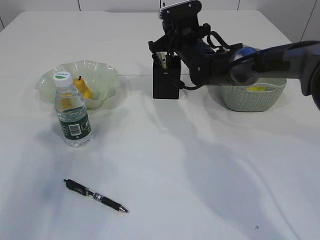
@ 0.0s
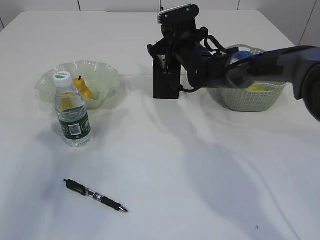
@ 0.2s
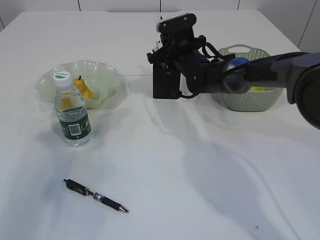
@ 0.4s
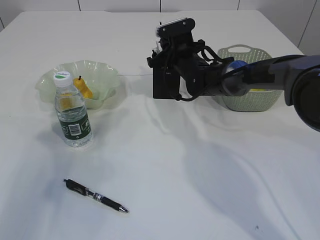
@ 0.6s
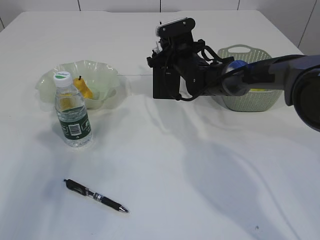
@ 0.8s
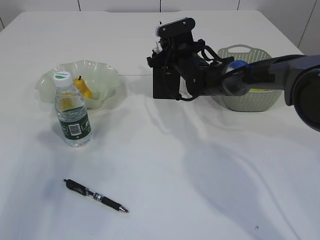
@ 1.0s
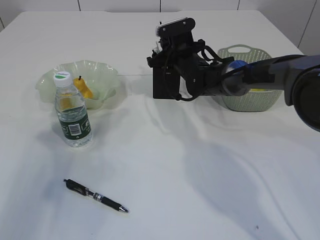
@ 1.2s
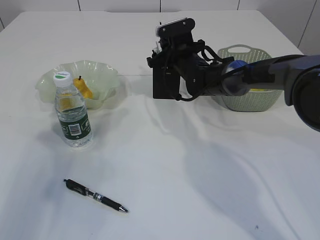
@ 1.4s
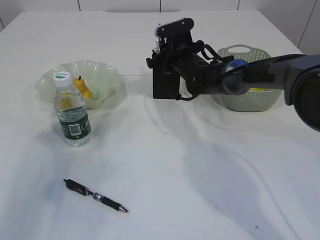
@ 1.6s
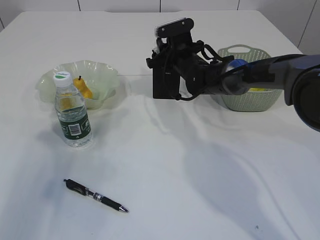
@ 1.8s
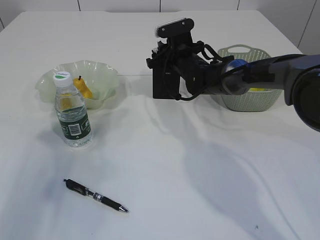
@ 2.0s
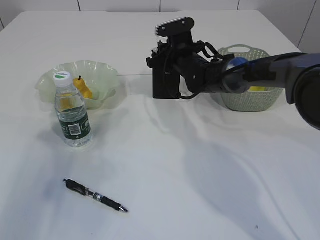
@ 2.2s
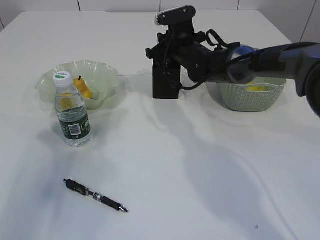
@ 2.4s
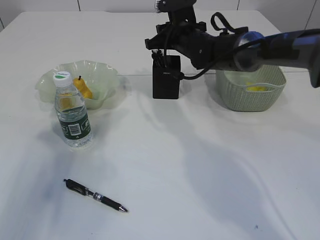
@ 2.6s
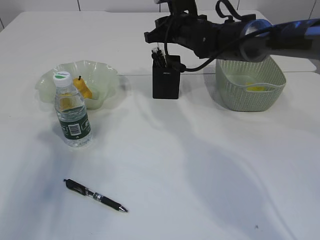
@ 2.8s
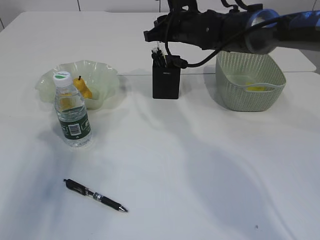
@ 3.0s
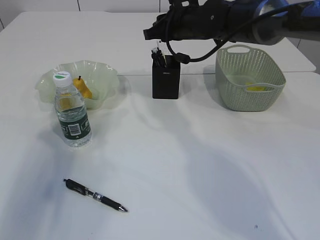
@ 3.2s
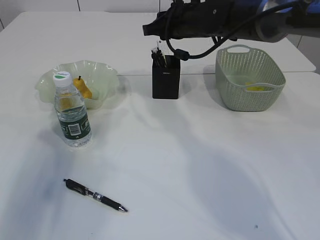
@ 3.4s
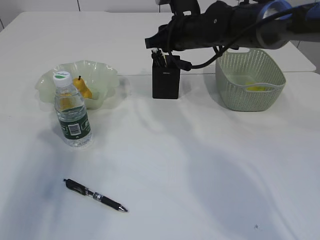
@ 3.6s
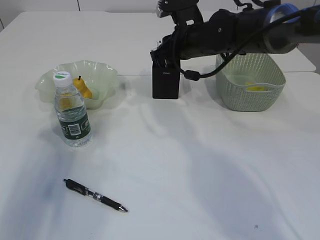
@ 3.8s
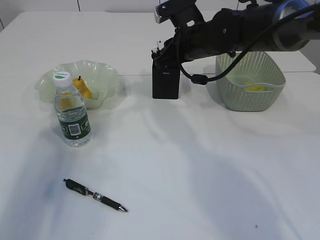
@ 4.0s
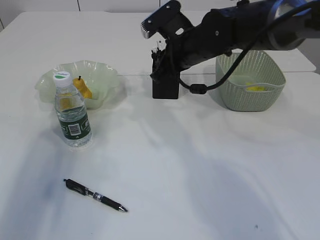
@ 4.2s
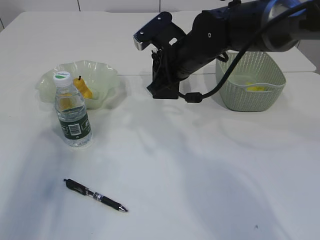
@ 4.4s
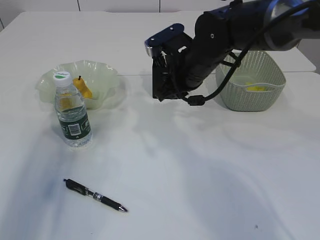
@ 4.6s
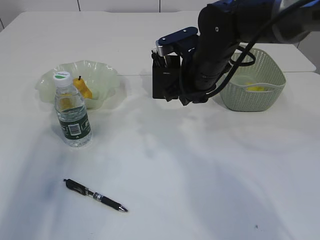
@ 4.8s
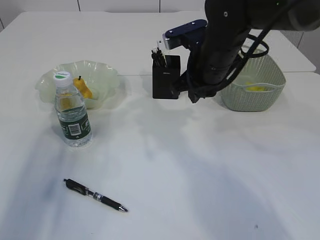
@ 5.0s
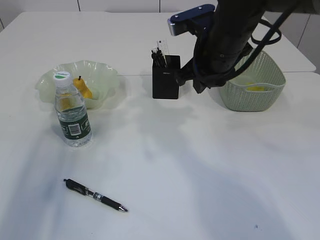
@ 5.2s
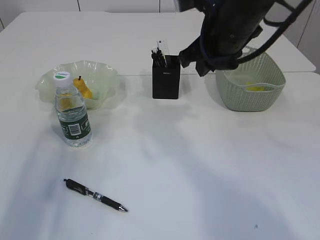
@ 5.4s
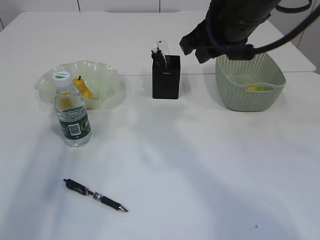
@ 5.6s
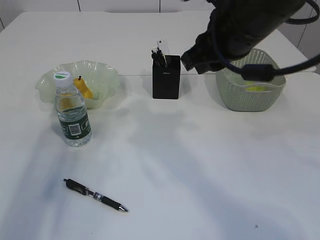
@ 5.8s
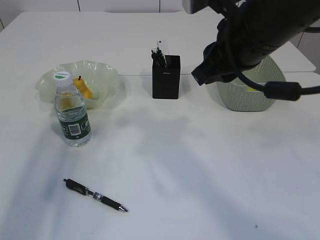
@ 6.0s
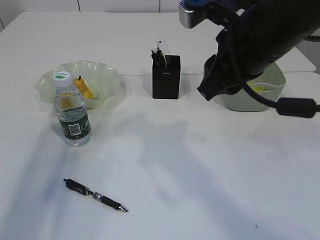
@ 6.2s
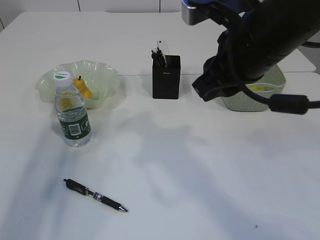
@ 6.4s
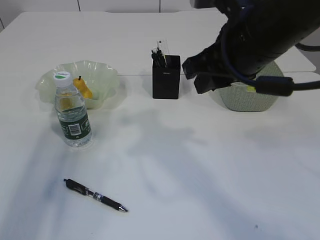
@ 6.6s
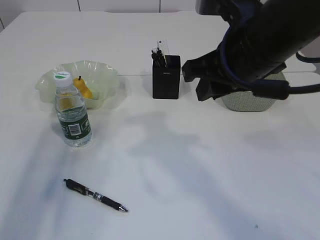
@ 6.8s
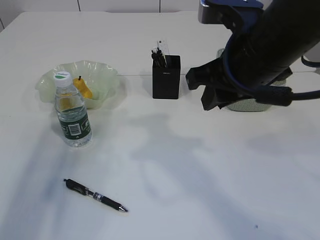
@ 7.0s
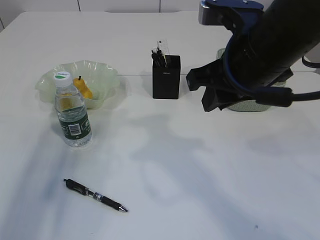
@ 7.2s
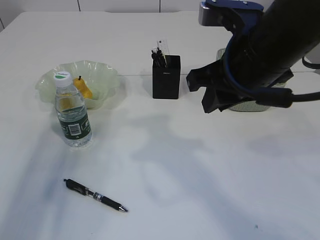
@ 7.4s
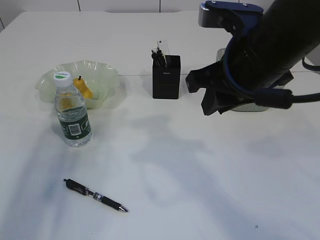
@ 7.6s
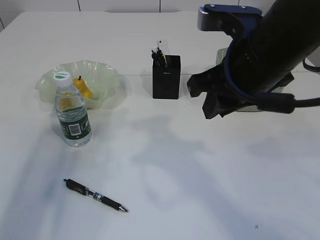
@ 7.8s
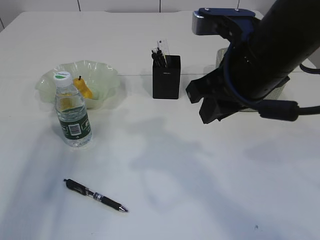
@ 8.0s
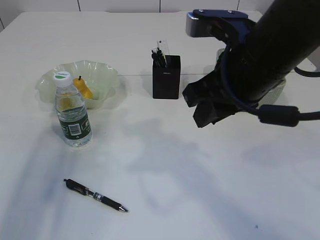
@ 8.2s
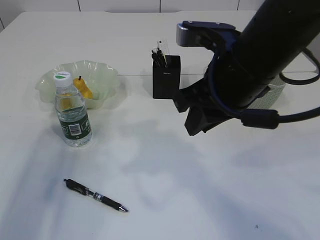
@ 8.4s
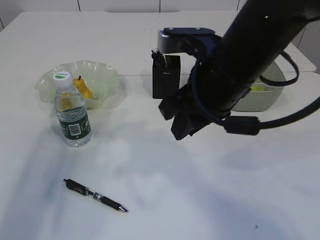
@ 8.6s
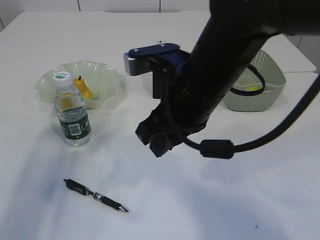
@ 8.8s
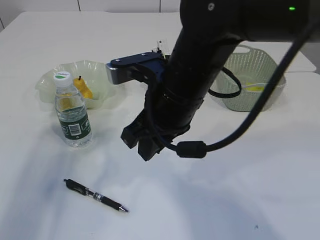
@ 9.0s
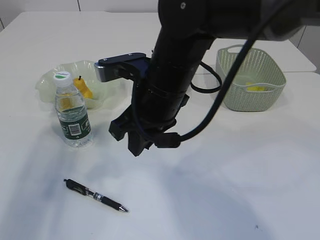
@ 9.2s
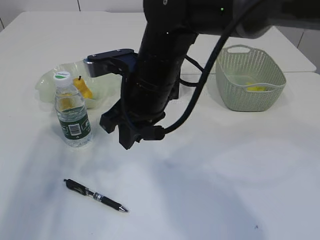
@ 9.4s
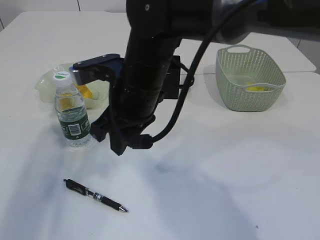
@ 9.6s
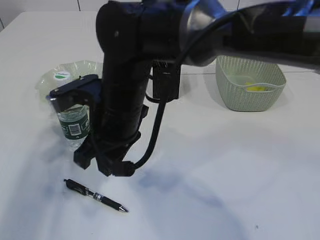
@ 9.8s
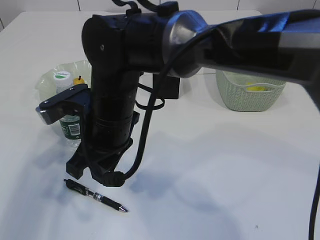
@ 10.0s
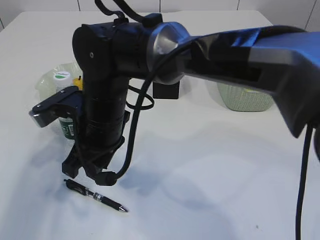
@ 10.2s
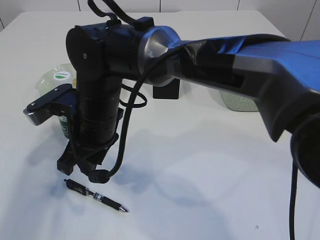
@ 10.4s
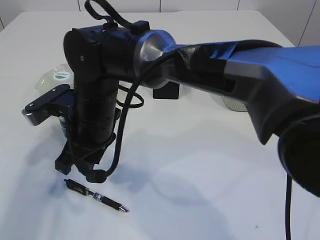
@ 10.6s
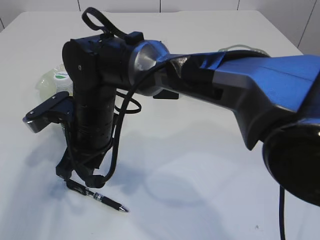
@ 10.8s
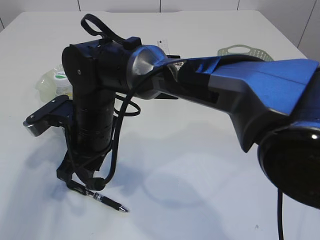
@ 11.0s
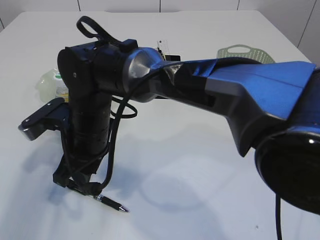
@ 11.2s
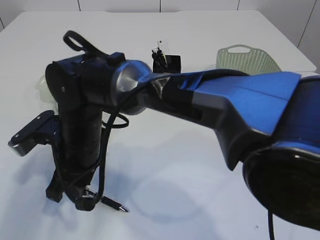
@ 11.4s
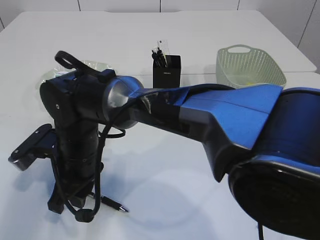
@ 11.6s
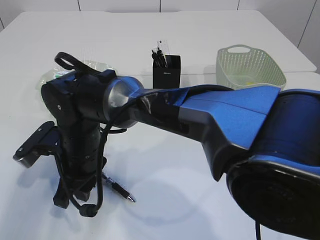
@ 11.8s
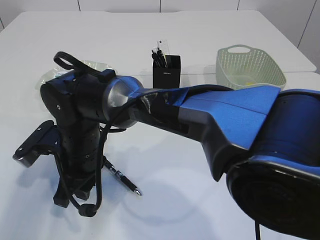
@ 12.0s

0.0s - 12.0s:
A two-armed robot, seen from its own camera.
Step, 0.0s - 4.8s: Place the pen into the pen holder.
0.0s - 1.6s: The grippers make only small movements.
1.6s - 3.0s: The right gripper goes some 10 cm upward.
3.0s - 4.4s: The right gripper heads backward, covering roughly 10 cm.
4.4s - 6.0s: The right gripper heads backward and upward, covering approximately 15 cm.
7.6s - 9.0s: The right gripper travels to the left by about 10 cm.
9.0s - 10.4s: The right gripper heads to the left and downward, covering approximately 15 cm.
10.4s - 12.0s: The right gripper is displaced downward by roughly 5 cm.

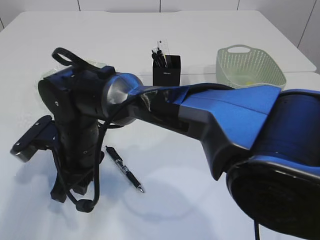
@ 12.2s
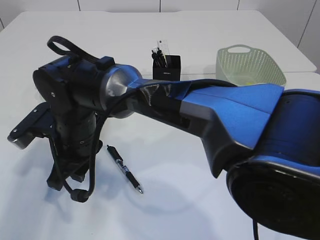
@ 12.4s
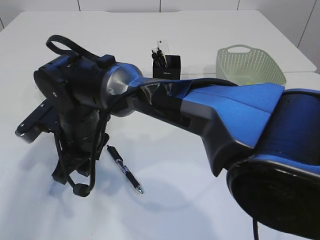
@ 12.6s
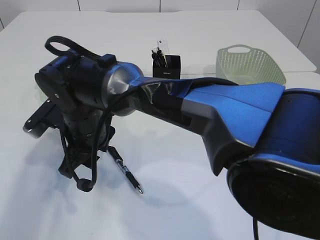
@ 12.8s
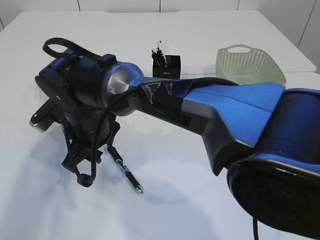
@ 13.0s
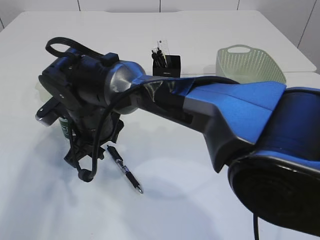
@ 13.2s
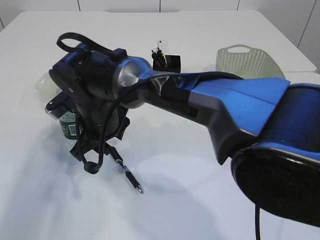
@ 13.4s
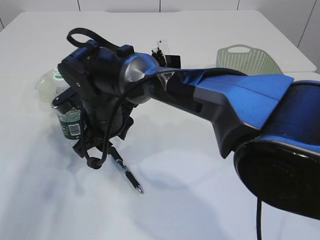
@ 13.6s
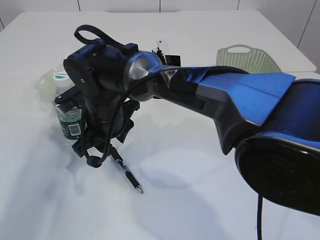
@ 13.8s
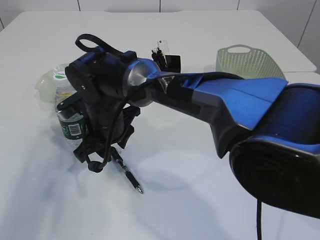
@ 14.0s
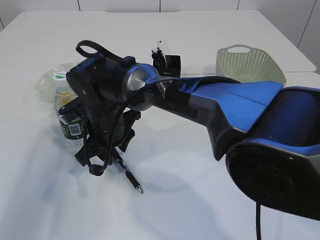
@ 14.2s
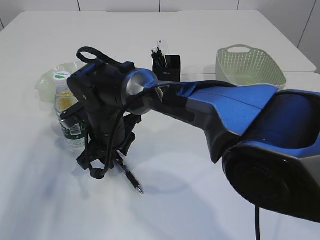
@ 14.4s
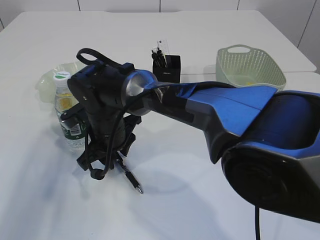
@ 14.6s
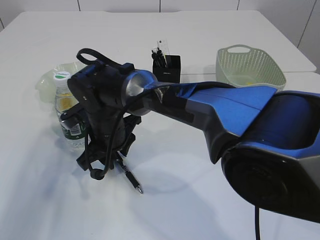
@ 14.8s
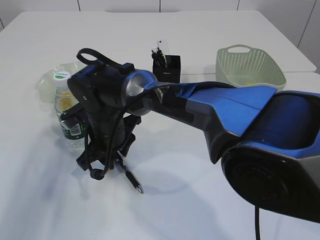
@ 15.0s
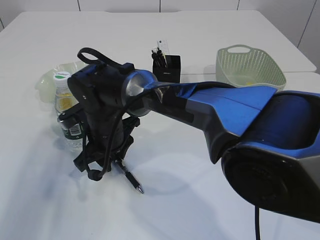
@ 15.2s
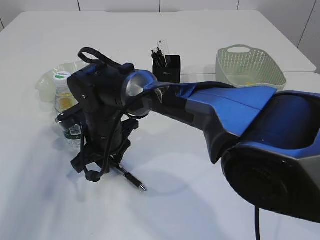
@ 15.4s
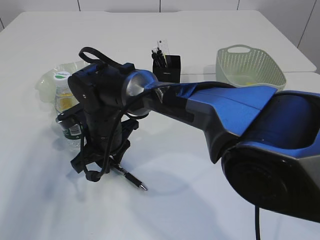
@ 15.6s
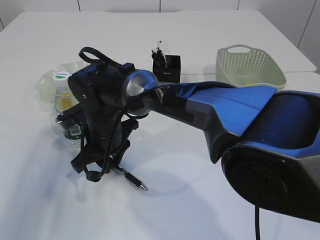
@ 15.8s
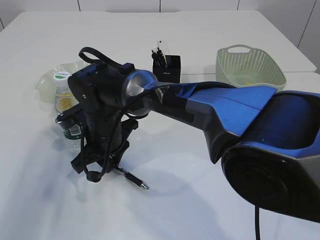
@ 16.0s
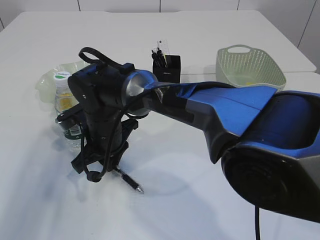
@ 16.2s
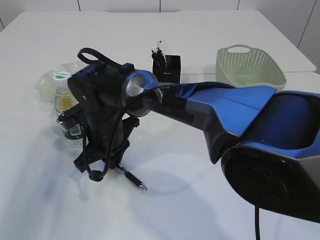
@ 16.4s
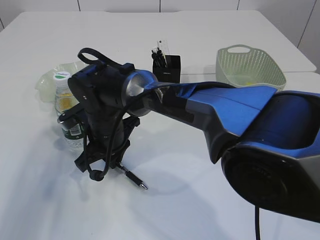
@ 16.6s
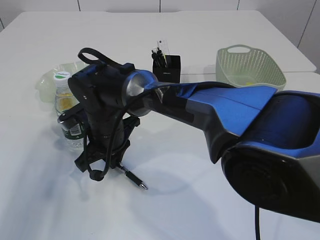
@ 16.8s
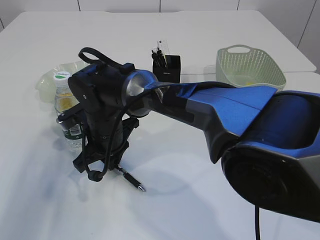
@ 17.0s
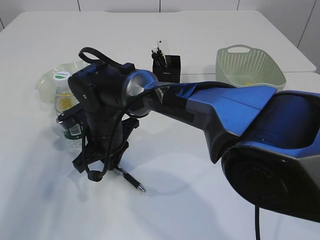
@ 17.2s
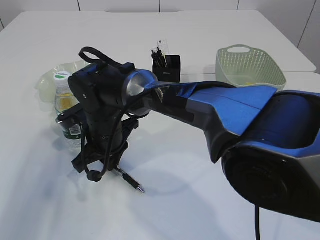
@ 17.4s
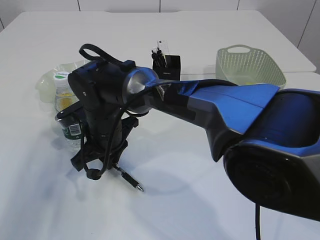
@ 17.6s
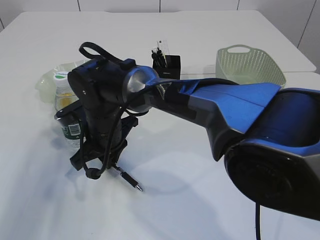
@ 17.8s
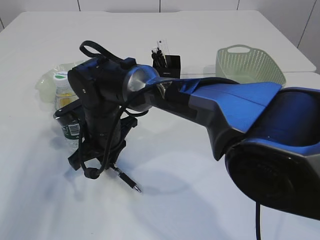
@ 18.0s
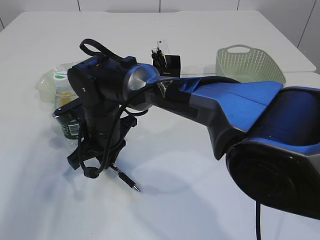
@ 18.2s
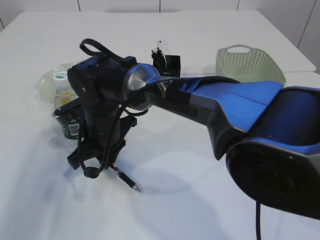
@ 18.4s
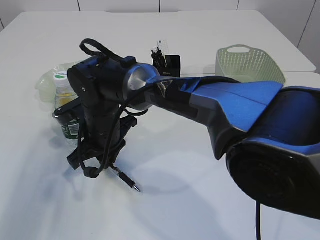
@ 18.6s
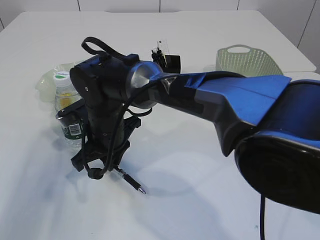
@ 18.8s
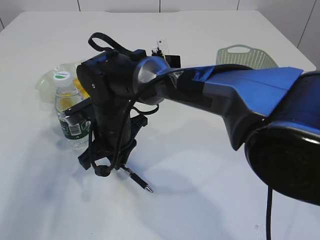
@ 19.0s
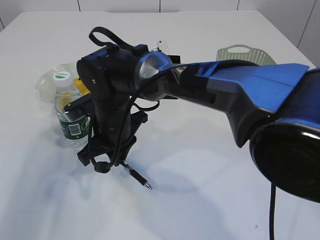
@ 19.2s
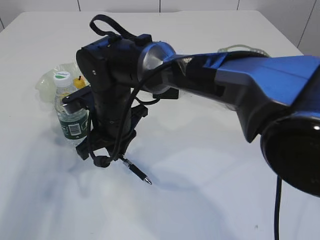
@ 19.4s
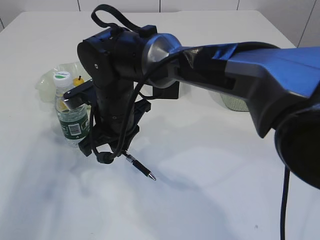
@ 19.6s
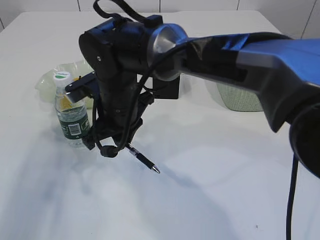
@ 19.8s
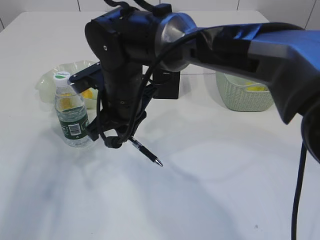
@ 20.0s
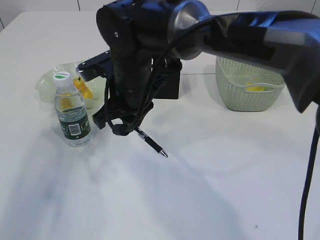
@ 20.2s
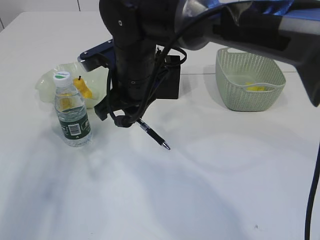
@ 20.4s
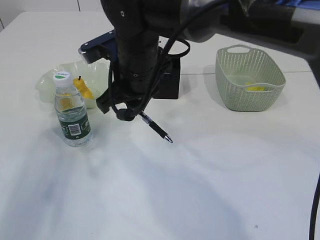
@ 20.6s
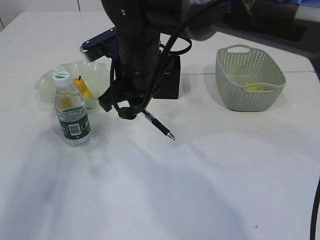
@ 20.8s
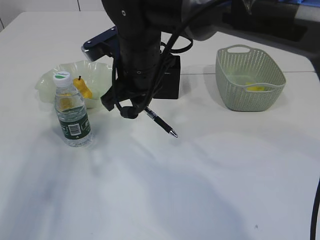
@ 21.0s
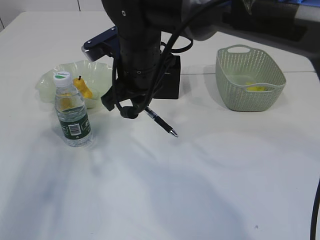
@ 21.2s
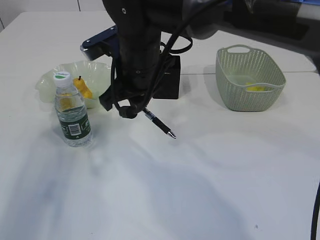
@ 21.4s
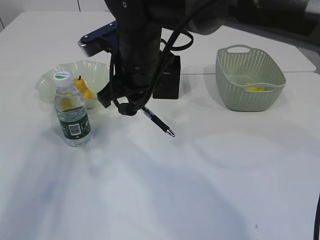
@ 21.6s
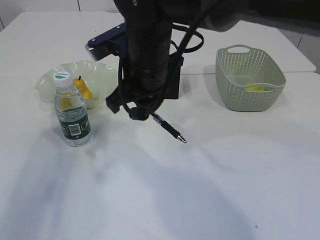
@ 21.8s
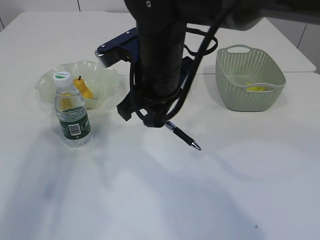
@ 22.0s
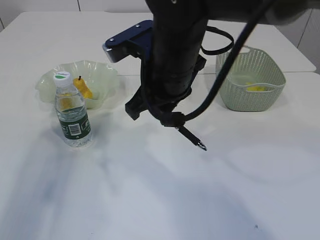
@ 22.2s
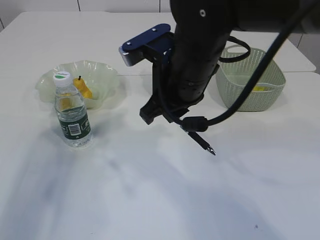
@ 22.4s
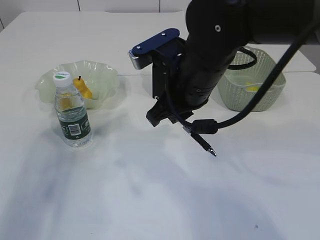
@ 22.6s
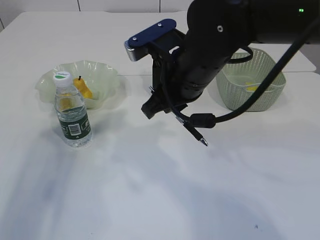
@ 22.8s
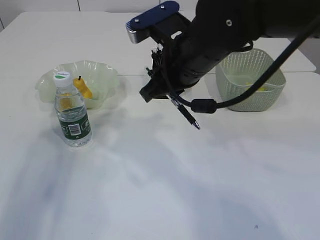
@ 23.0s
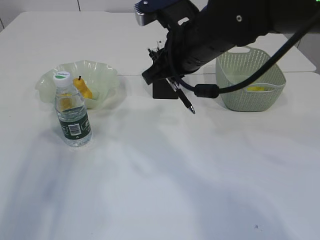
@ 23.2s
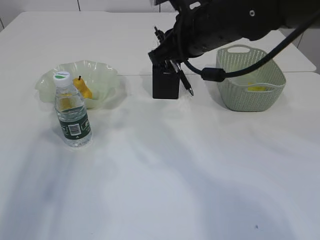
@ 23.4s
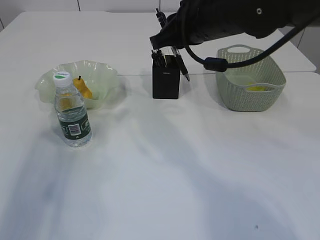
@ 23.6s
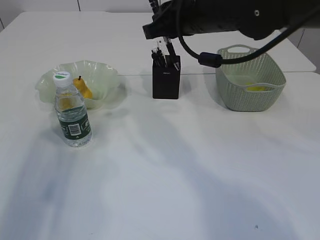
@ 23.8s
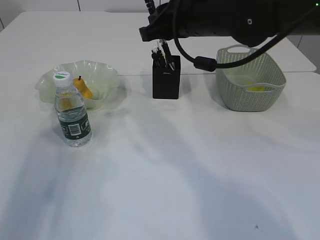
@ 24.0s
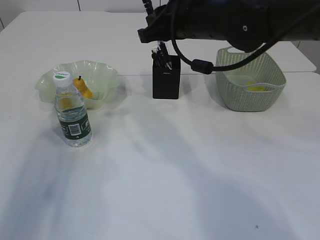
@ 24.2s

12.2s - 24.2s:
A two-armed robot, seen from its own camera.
Step, 12.2s - 19.6s: Pick up the pen with right arm.
12.2s - 13.8s: The right gripper is displaced forward by approximately 5 cm.
16.6s - 18.2s: Both grippers stay about where they are.
18.2s - 19.8s: The right gripper is displaced upward by approximately 5 cm.
19.8s - 21.2s: The right gripper shifts roughly 5 cm upward.
21.2s - 22.6s: The right gripper travels to the right and backward by approximately 10 cm.
22.6s - 24.2s: The right gripper heads forward, covering approximately 10 cm.
